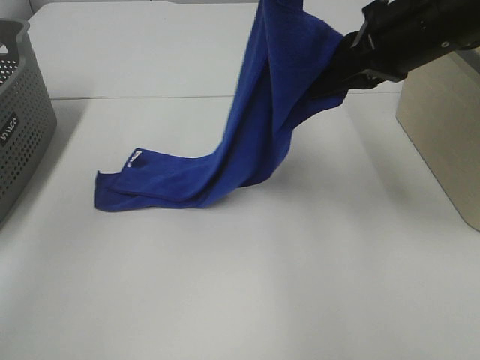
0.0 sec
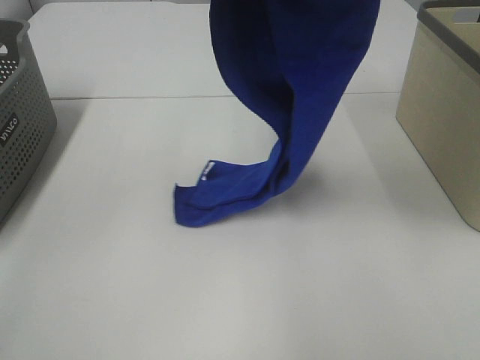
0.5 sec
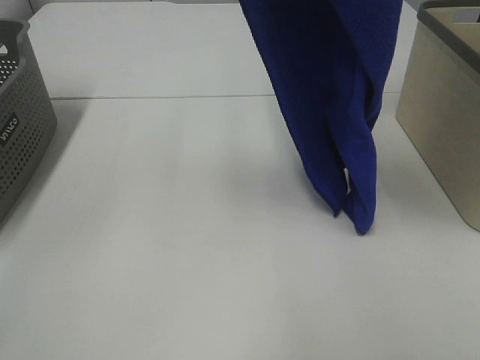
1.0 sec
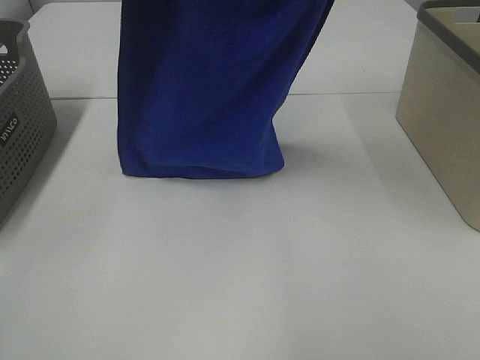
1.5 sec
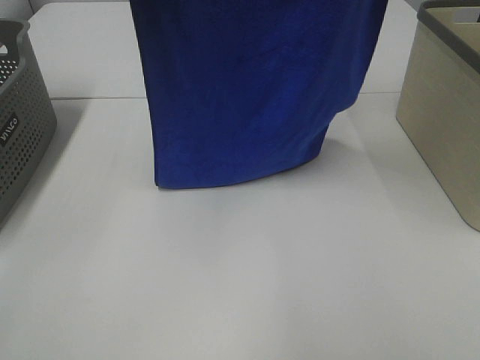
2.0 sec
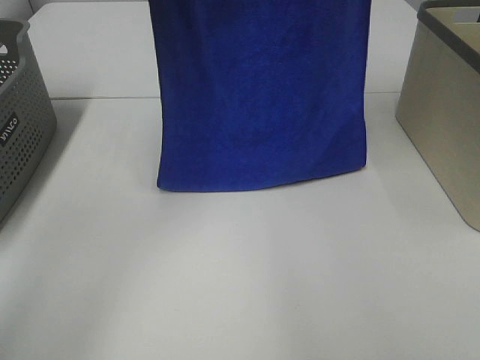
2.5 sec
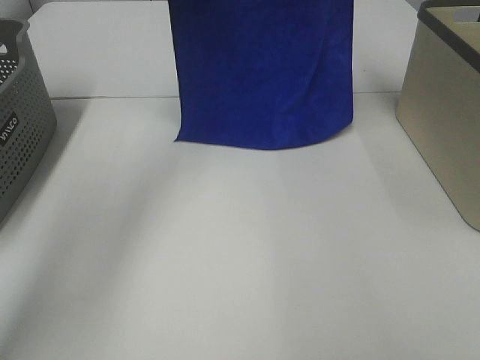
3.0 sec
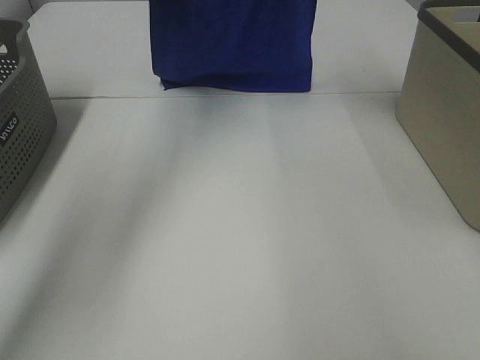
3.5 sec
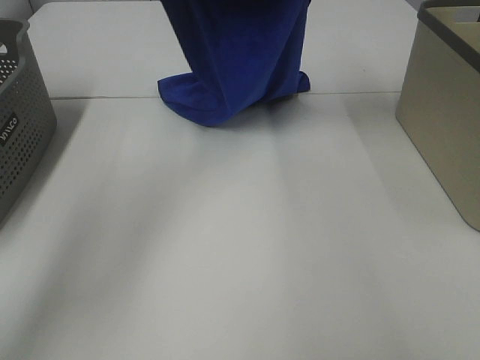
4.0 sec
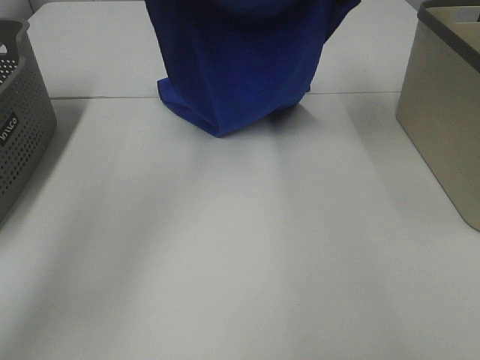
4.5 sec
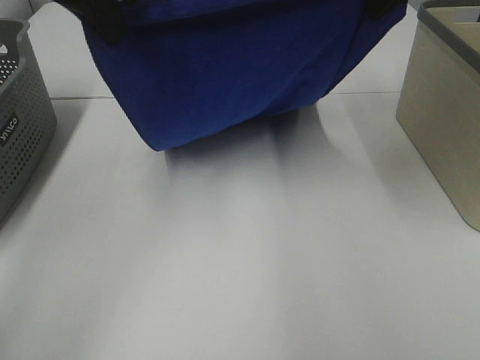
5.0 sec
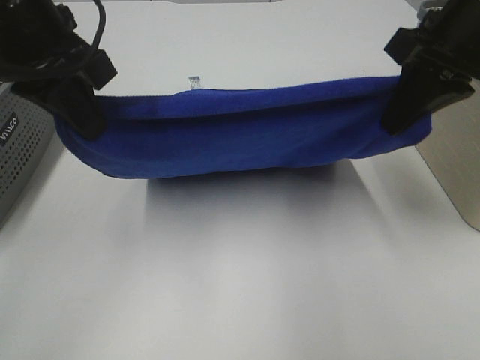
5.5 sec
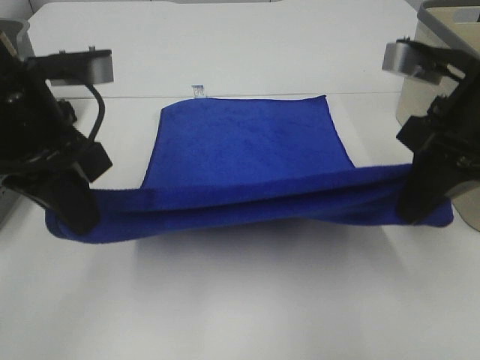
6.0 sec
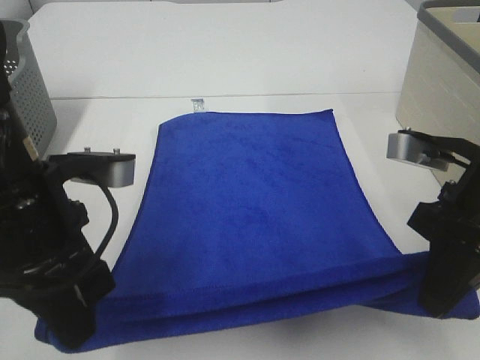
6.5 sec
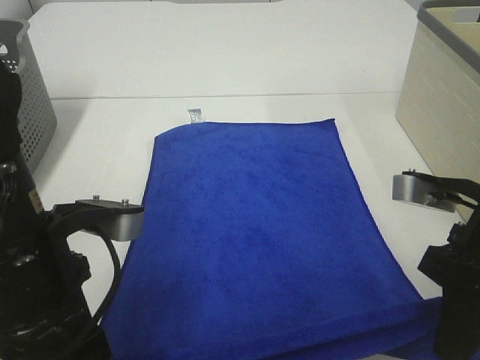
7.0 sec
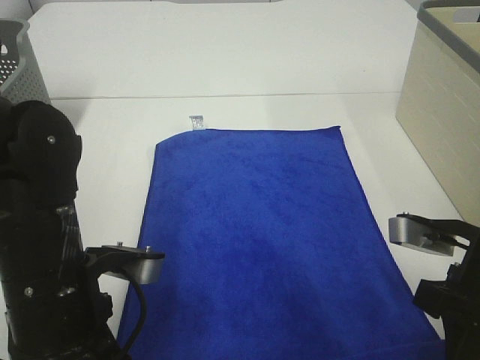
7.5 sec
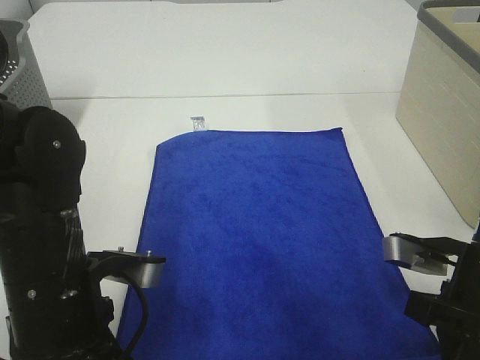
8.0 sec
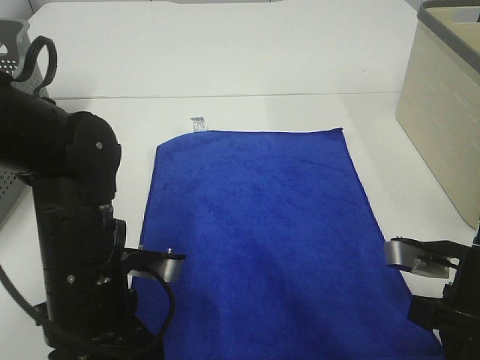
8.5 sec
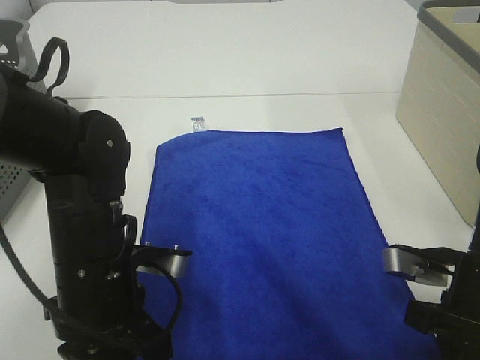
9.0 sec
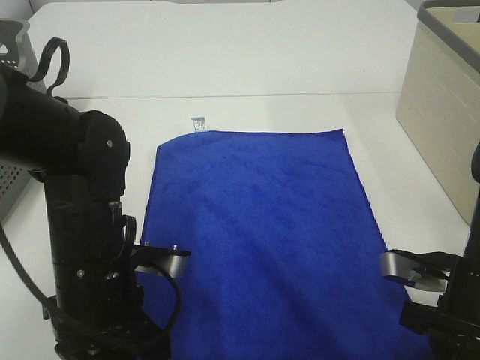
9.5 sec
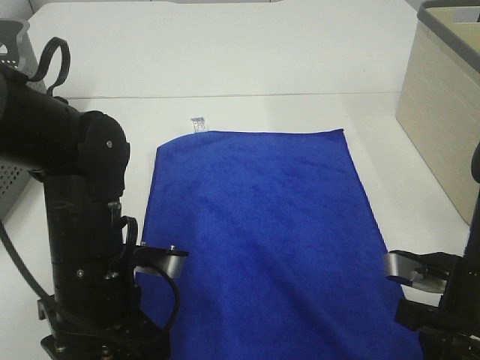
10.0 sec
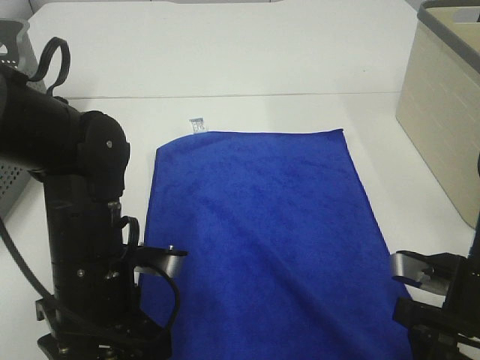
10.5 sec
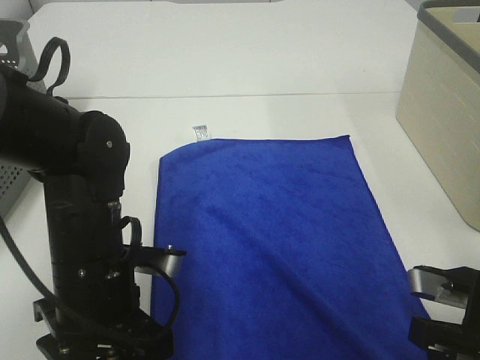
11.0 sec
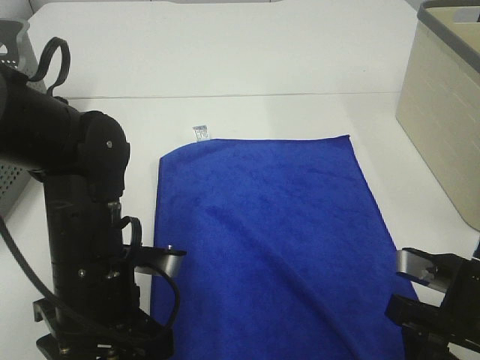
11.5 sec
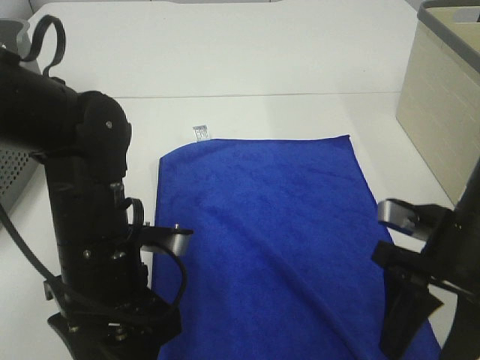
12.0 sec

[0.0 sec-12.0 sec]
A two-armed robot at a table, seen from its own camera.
Task of the whole recording: Remove the towel and place it.
Step, 0.0 sec to 4.0 sec: Left hand: spread the blue towel flat on the table.
Step, 0.0 sec to 5.5 sec: Right hand: spread the blue towel flat on the table.
Step, 6.0 sec to 12.0 sec: Left hand:adjust the blue towel.
Step, 6.0 sec to 12.0 sec: Right hand:adjust the blue towel.
0.0 sec to 2.0 sec: The right gripper goes approximately 20 cm upward, while the left gripper moves upward and to the left, approximately 10 cm.
2.0 sec to 4.0 sec: Both grippers move forward and downward, about 25 cm.
4.0 sec to 6.0 sec: The left gripper goes roughly 25 cm backward; the right gripper shifts about 25 cm backward and downward.
6.0 sec to 8.0 sec: The two grippers go roughly 15 cm downward and backward.
8.0 sec to 10.0 sec: The left gripper opens up; the right gripper opens its fingers.
10.0 sec to 12.0 sec: The grippers move only a little.

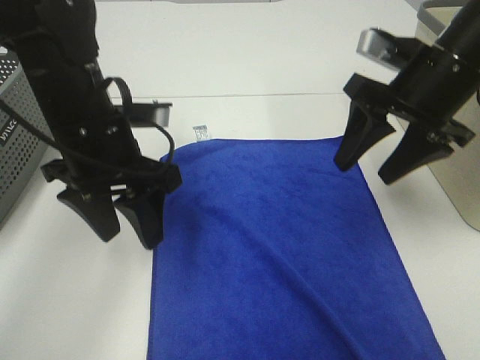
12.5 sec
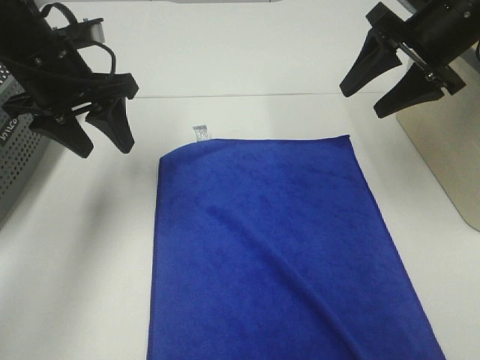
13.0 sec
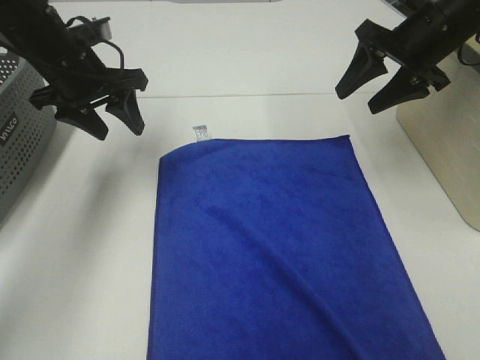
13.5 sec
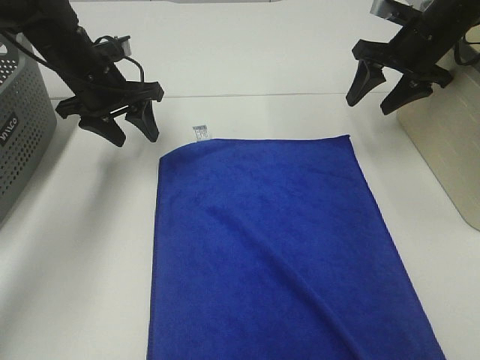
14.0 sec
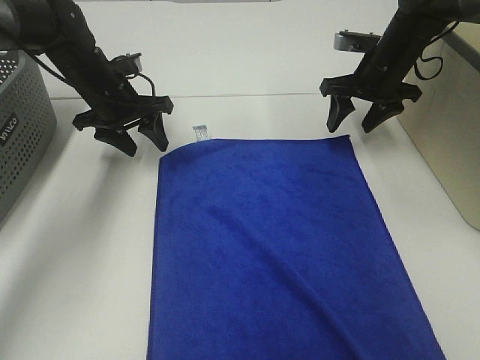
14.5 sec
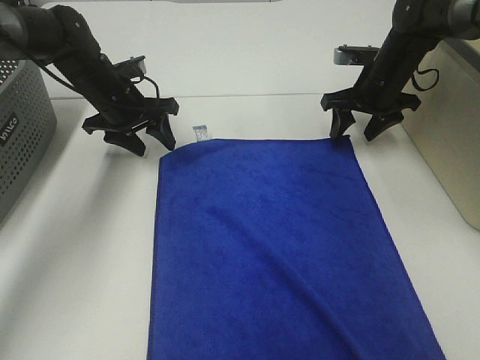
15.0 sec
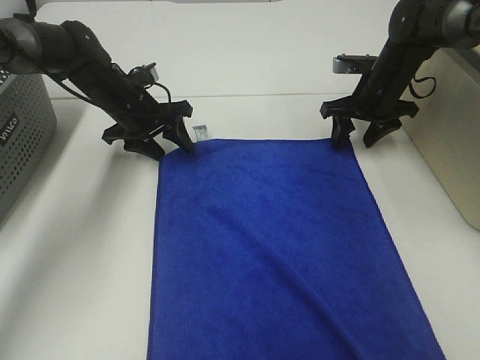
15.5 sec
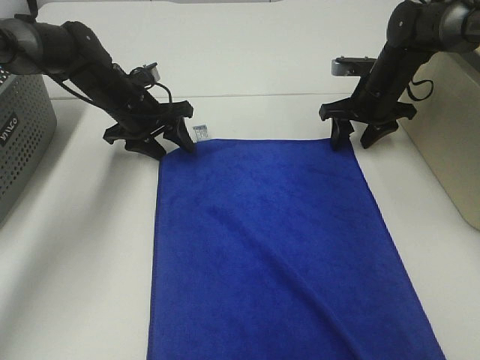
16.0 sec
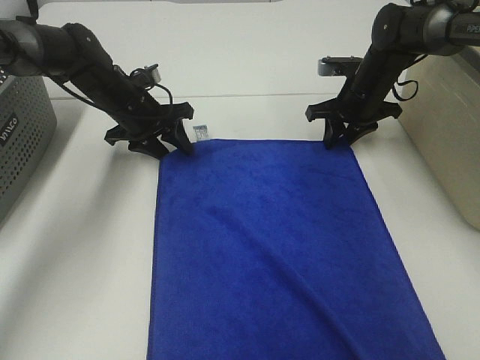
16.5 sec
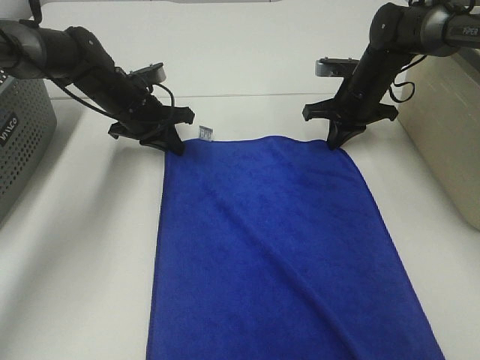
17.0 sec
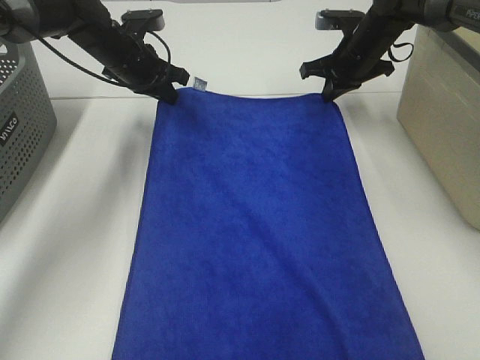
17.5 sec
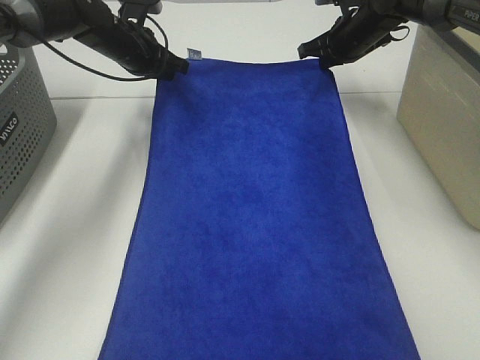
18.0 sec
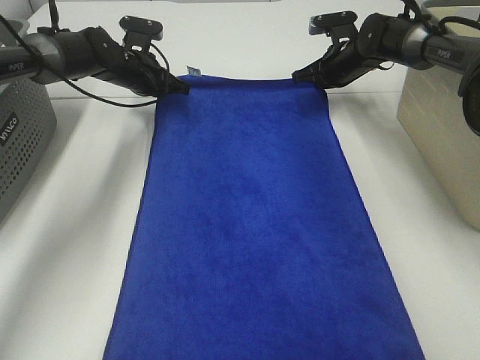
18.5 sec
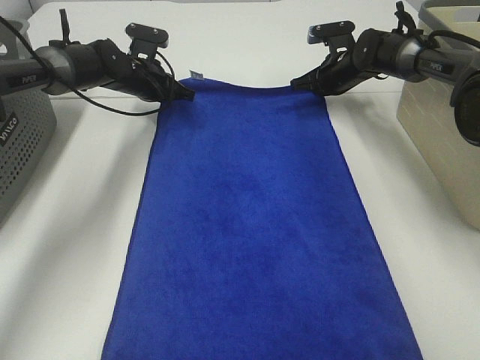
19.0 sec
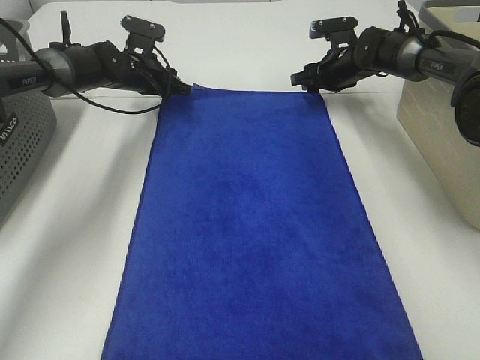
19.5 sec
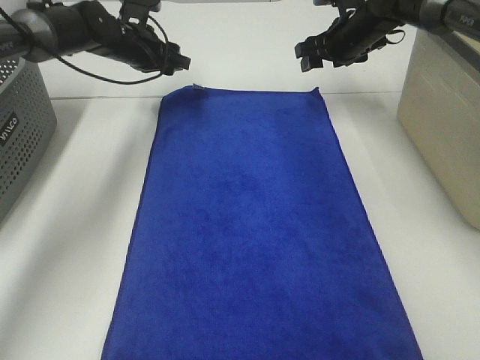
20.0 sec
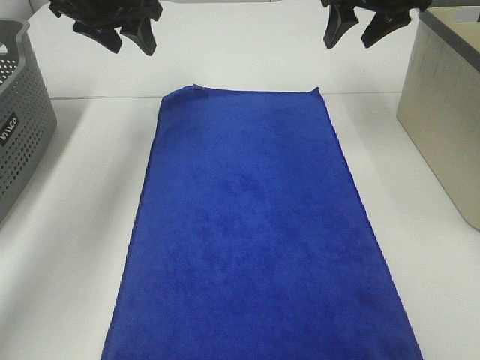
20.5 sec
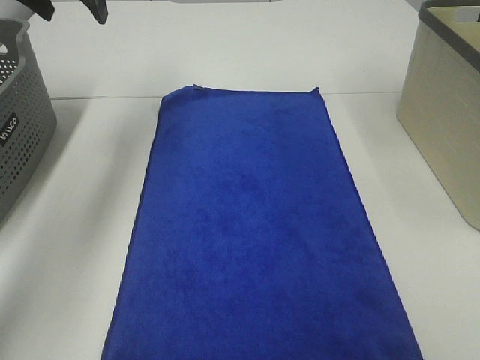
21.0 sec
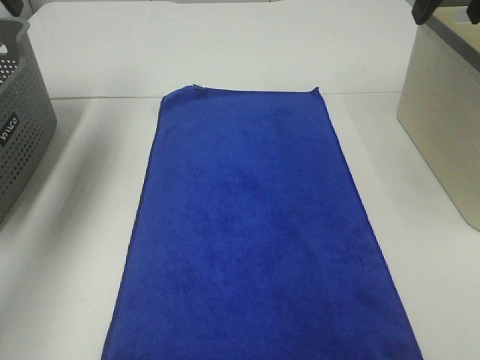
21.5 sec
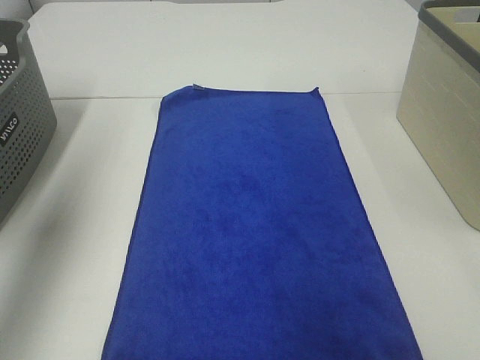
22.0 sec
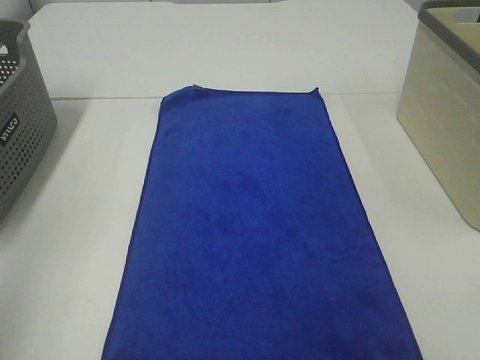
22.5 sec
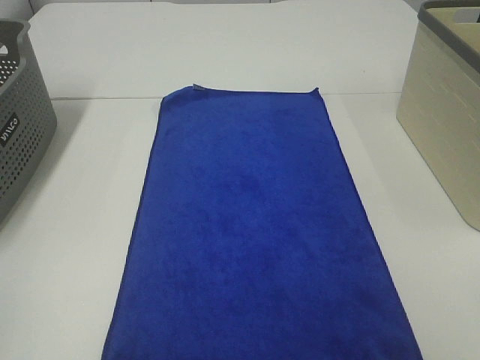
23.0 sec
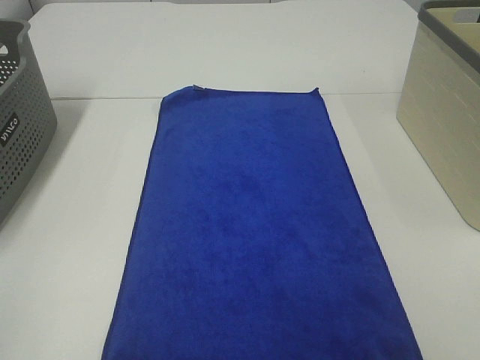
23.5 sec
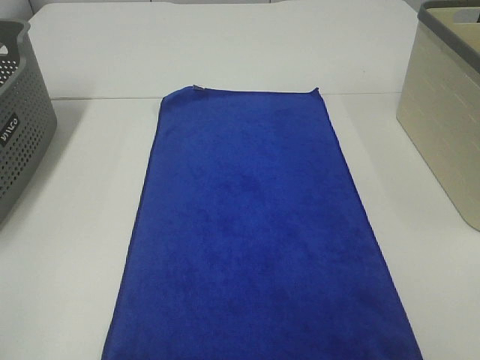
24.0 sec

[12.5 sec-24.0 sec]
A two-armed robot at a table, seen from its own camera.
Task of the whole recording: Remove the towel and place it.
12.5 sec to 14.5 sec: The grippers both shift forward and downward by about 20 cm.
14.5 sec to 16.5 sec: The right gripper travels downward by roughly 5 cm, and closes its fingers.
16.5 sec to 18.5 sec: The grippers both shift forward by approximately 10 cm. The left gripper closes up, while the right gripper closes.
18.5 sec to 20.0 sec: The two grippers go roughly 5 cm upward. The left gripper opens. The right gripper opens its fingers.
20.0 sec to 22.0 sec: The left gripper travels backward, upward and to the left by roughly 40 cm. The right gripper shifts some 40 cm backward and upward.
22.0 sec to 24.0 sec: The left gripper travels backward by about 25 cm.

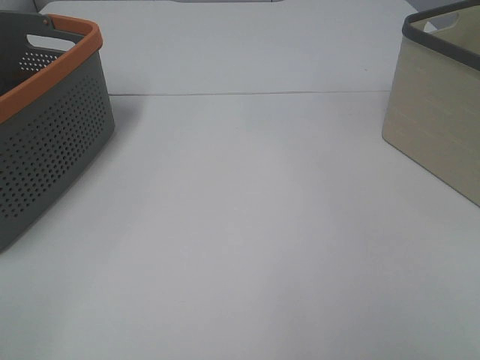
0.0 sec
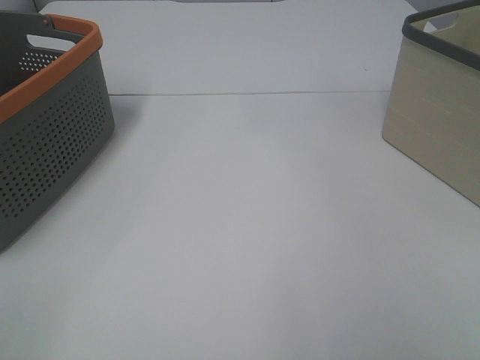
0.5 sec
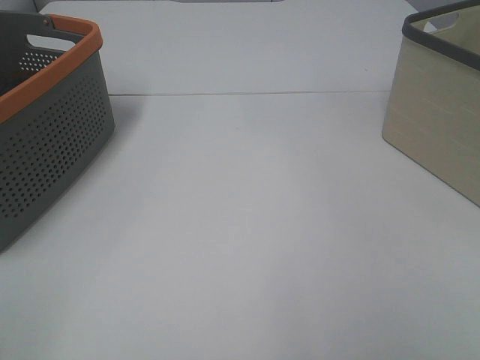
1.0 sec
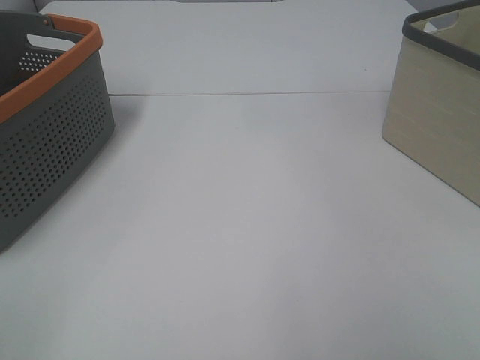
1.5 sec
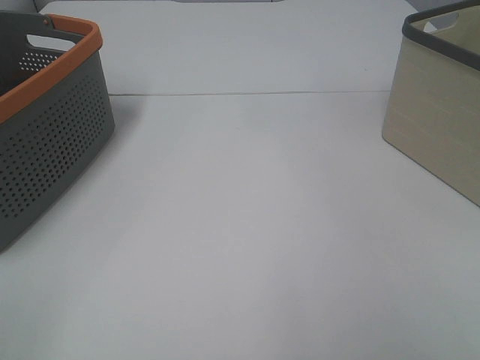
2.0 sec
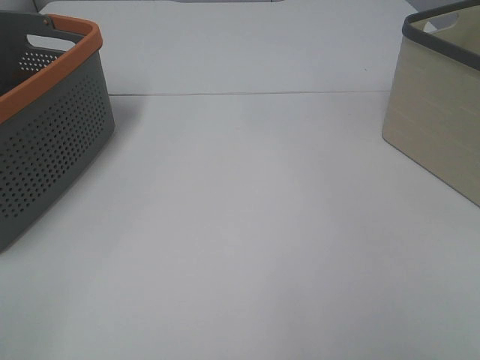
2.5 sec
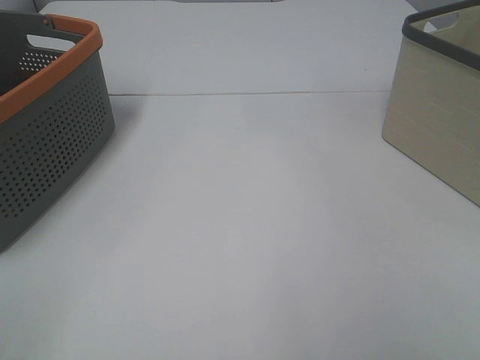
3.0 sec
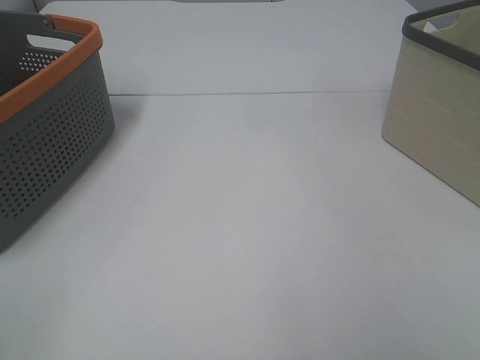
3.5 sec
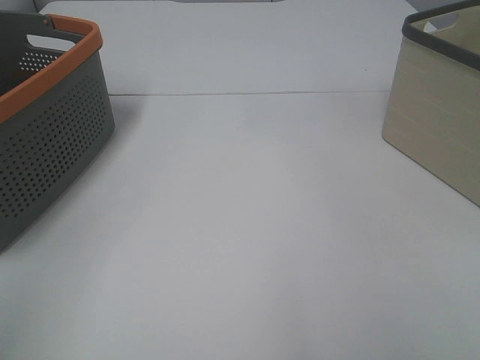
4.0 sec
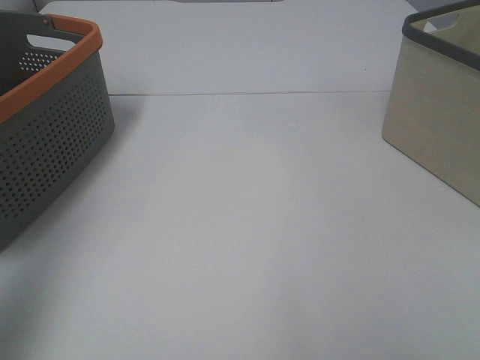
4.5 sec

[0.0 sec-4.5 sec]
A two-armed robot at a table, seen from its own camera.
Task of the whole recording: Remove the towel and place it.
0.0 sec to 2.0 sec: The two grippers keep their place.
2.0 sec to 4.5 sec: The left gripper goes some 25 cm forward and upward.
